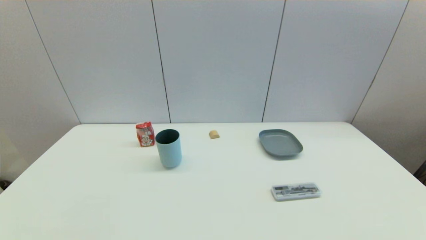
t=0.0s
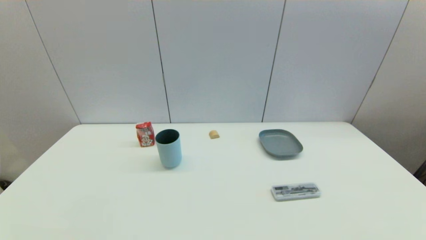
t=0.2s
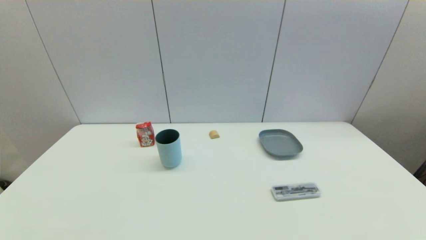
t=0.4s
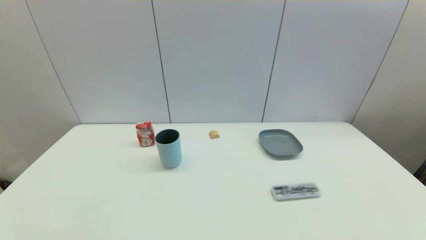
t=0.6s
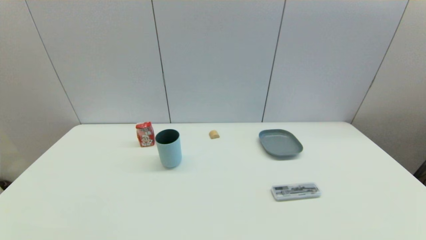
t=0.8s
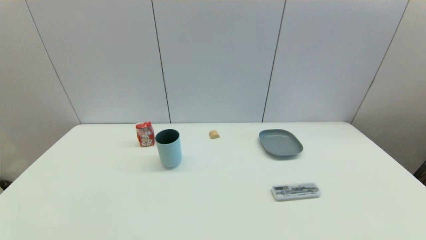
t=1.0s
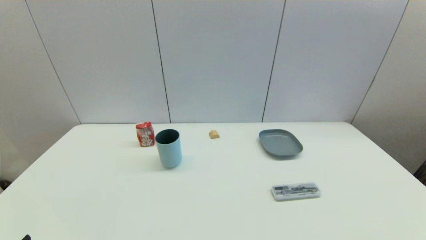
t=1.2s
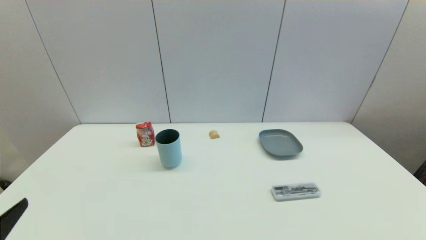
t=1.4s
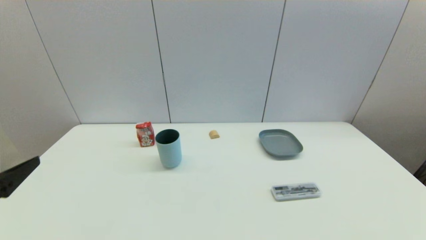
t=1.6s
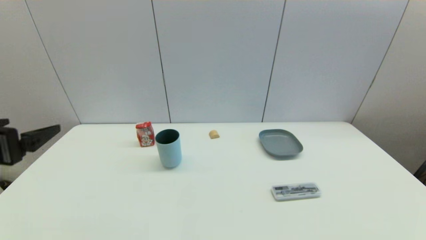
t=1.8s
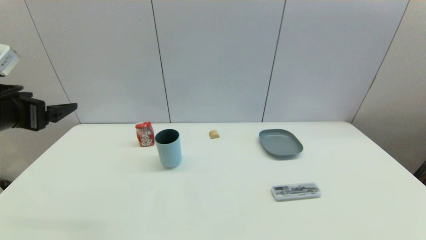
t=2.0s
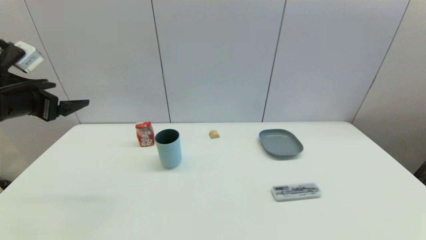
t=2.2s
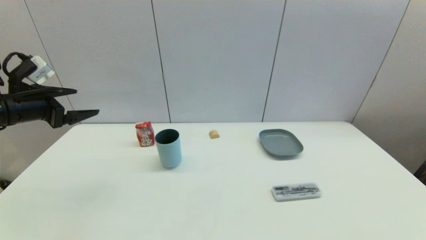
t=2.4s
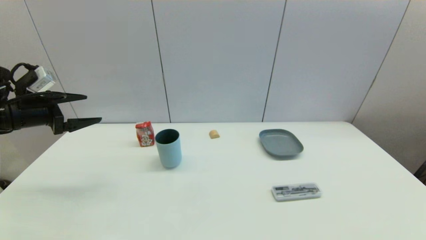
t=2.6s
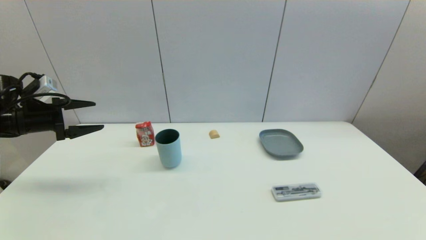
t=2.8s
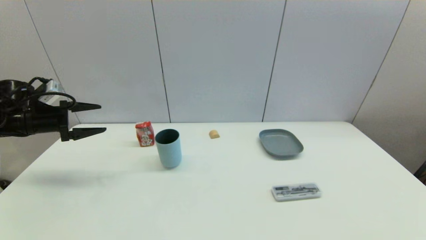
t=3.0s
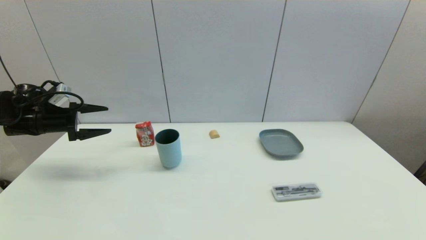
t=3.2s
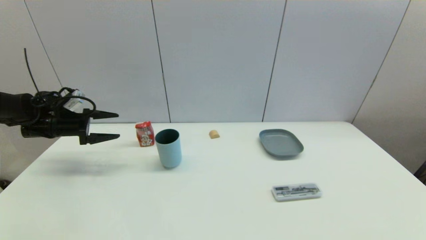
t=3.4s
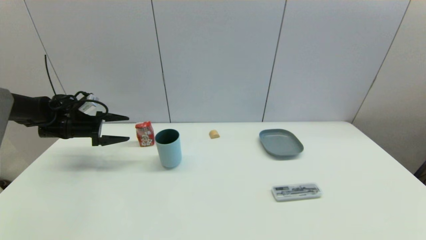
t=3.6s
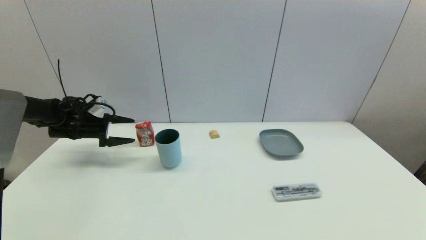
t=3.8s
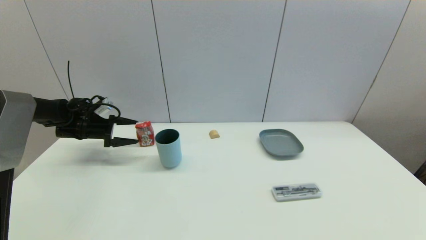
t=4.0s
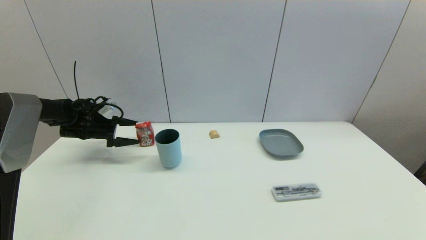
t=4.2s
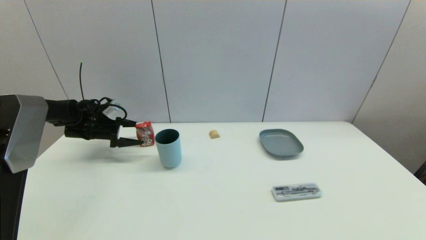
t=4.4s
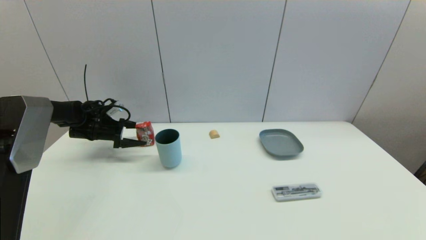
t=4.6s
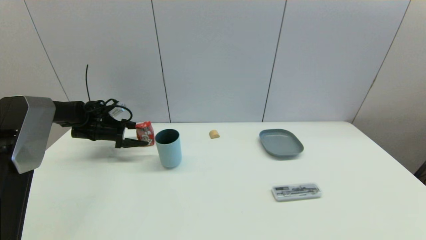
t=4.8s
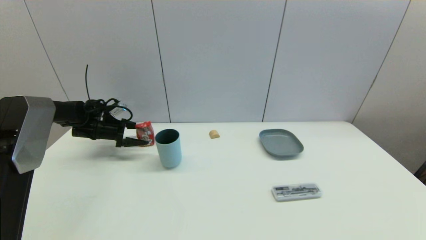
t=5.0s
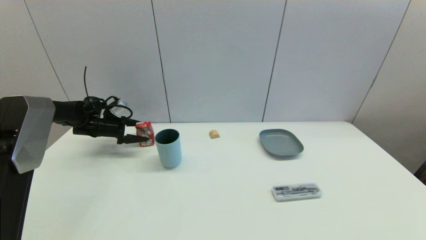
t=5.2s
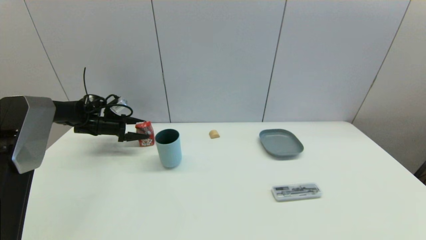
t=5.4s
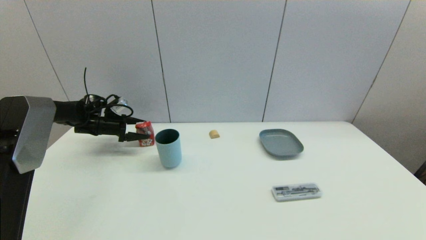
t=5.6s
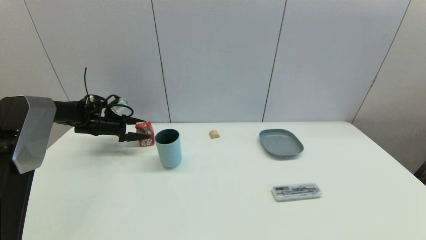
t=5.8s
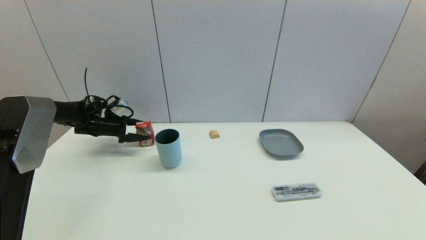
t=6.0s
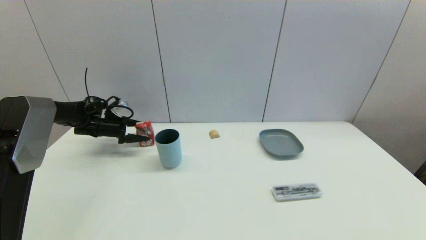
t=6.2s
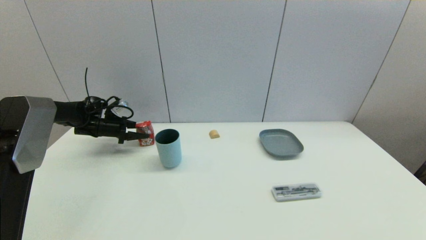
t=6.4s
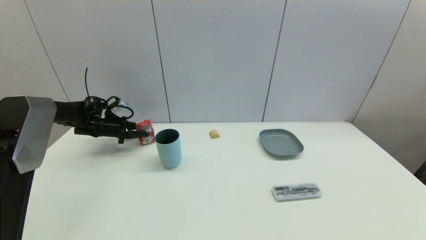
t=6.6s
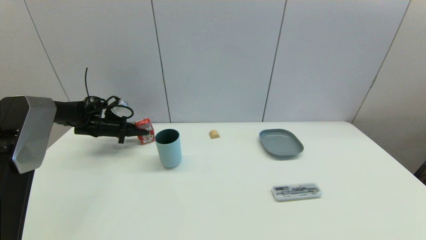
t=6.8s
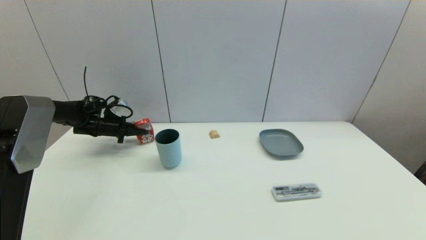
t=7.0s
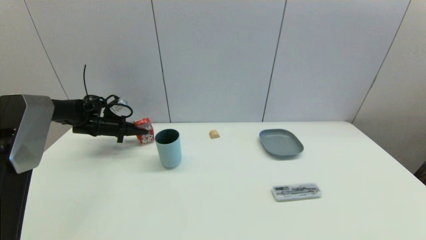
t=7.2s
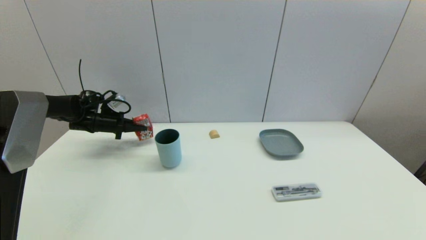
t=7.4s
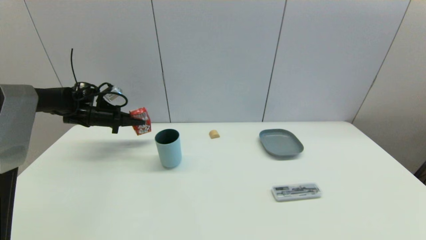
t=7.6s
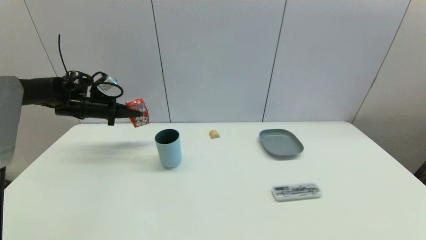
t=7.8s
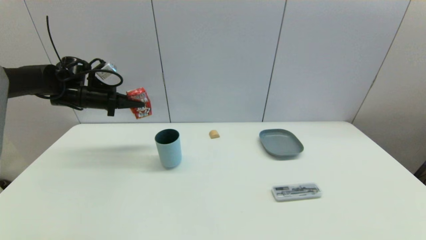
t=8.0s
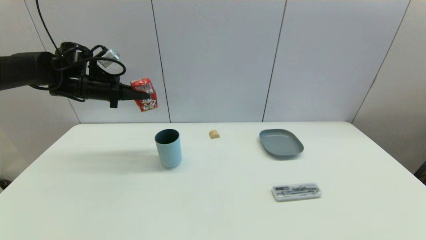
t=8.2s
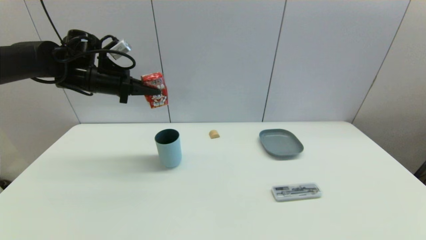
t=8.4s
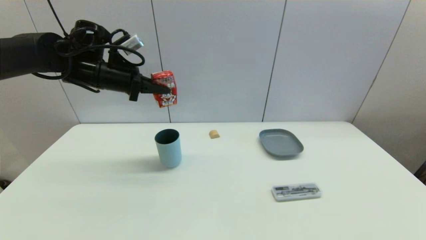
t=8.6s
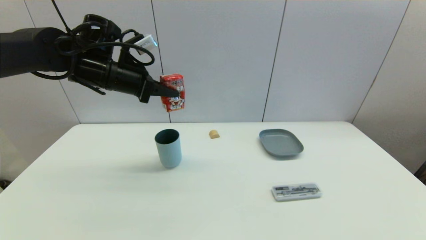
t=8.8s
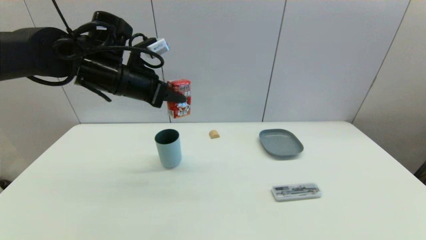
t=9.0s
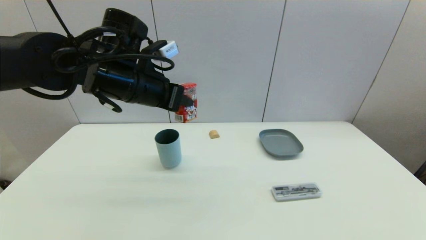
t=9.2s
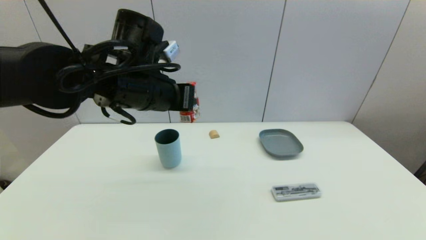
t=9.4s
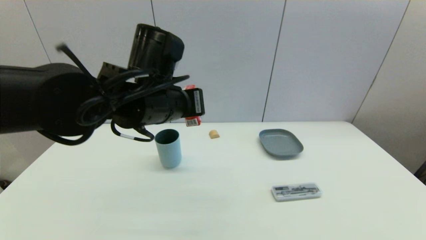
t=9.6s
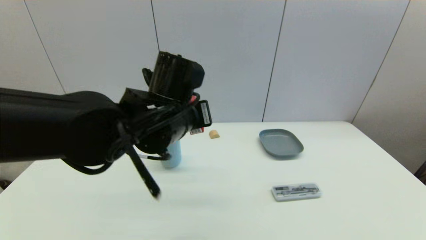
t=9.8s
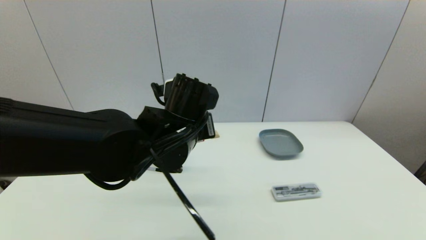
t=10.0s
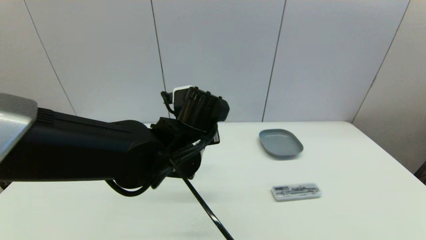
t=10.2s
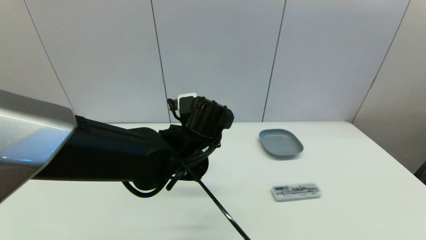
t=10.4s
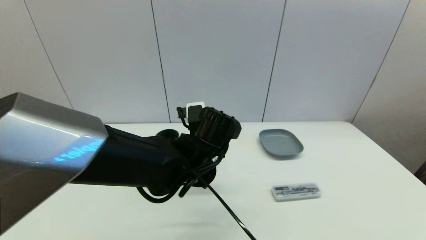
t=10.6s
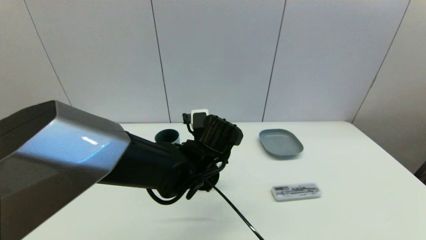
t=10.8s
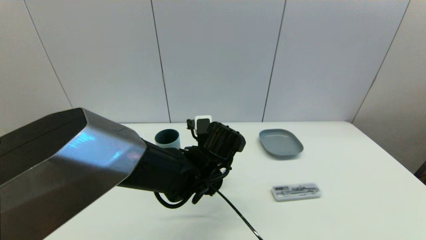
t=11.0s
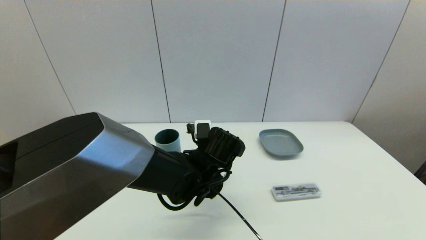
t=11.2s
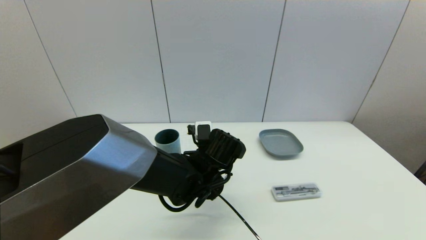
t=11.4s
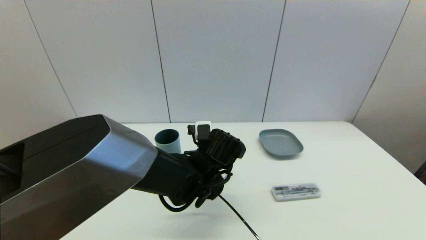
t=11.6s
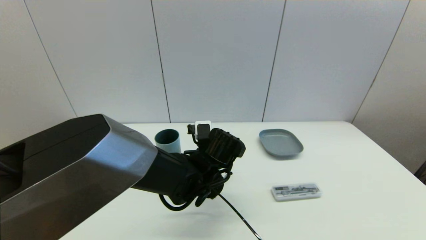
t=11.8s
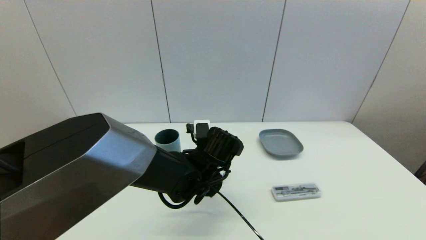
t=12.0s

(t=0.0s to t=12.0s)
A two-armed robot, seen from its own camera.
Step, t=1.4s - t=7.0s: Grasp the wangzai milk with left gripper.
t=0.0s - t=1.6s: The left gripper travels upward and forward by approximately 20 cm.
t=1.6s - t=3.0s: The left gripper moves forward and to the left, roughly 30 cm.
t=3.0s - t=4.4s: The left gripper travels forward, downward and to the right by about 15 cm.
t=4.4s - t=6.0s: There are only small adjustments of the grippers.
t=6.0s - t=7.6s: The left gripper travels upward by approximately 5 cm, and closes its fingers.
t=7.6s - t=9.0s: The left gripper shifts some 25 cm to the right, upward and backward.
t=9.0s - t=10.4s: The left gripper heads to the right, downward and backward, covering roughly 20 cm.
t=10.4s - t=12.0s: The left gripper shifts some 5 cm downward.

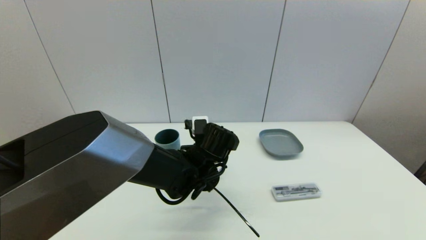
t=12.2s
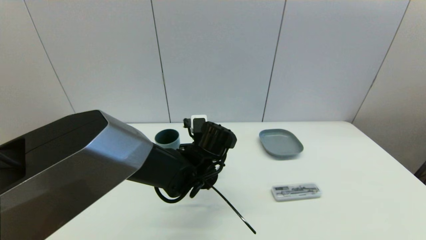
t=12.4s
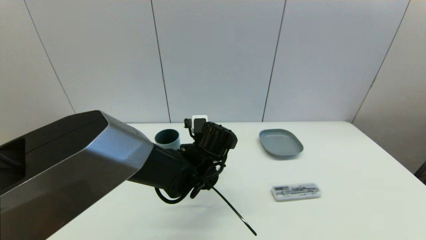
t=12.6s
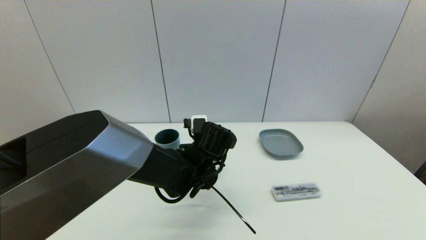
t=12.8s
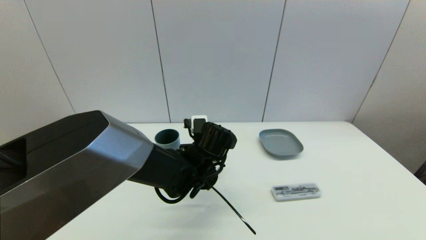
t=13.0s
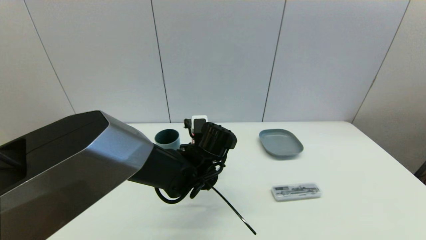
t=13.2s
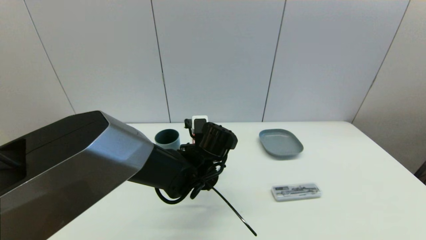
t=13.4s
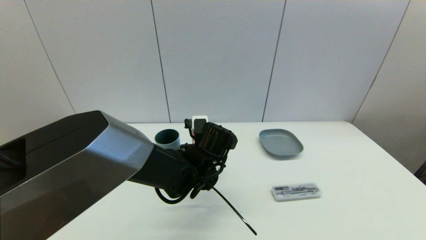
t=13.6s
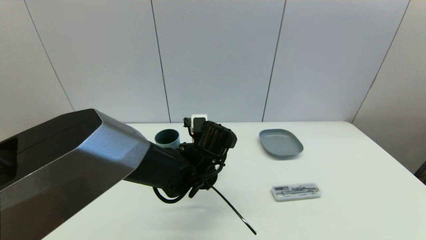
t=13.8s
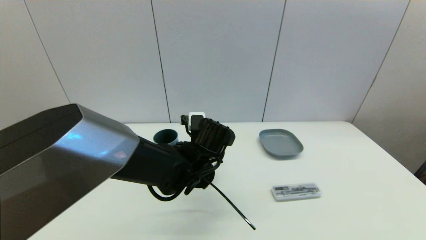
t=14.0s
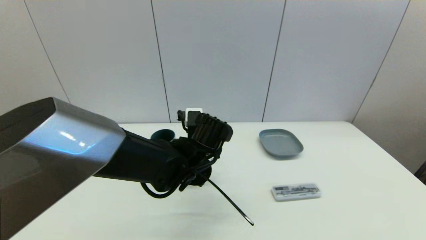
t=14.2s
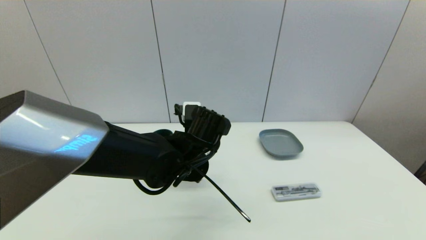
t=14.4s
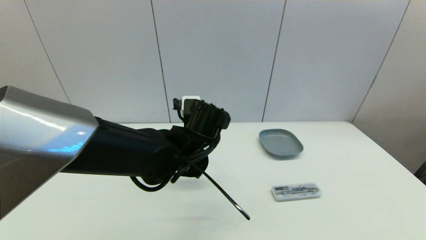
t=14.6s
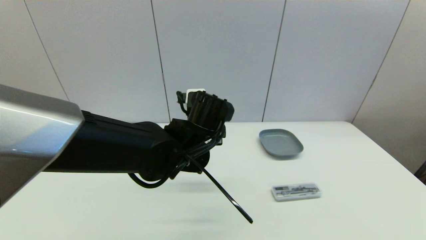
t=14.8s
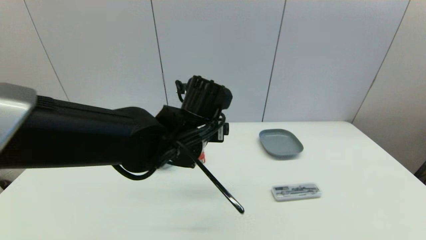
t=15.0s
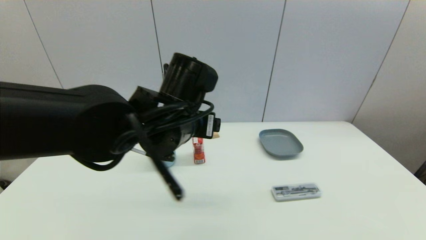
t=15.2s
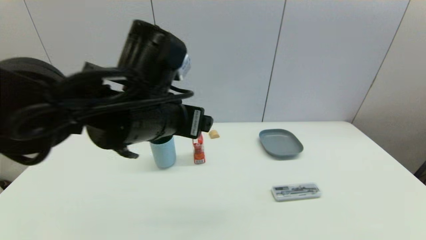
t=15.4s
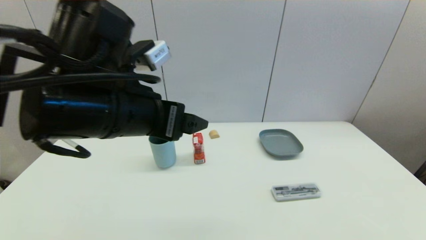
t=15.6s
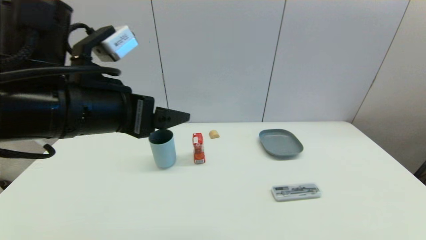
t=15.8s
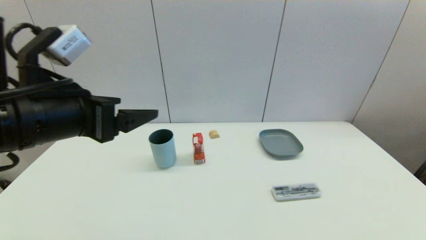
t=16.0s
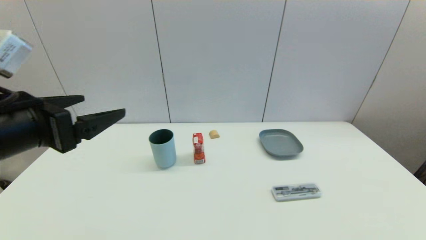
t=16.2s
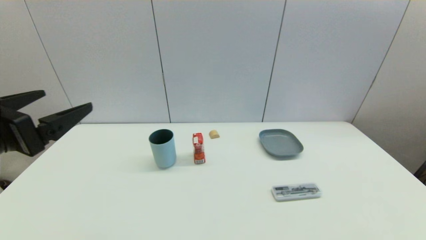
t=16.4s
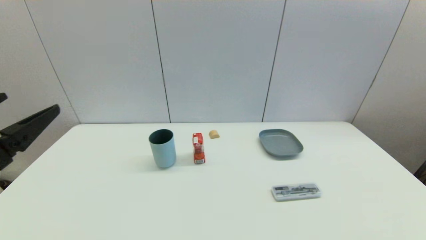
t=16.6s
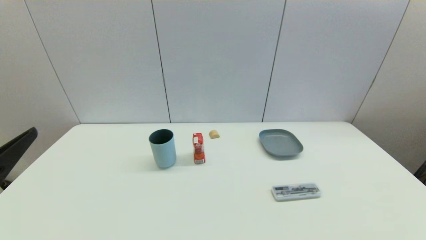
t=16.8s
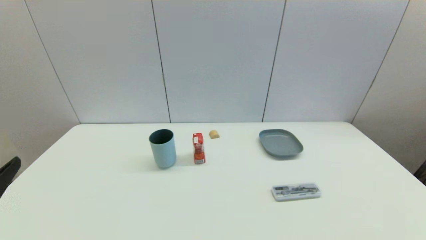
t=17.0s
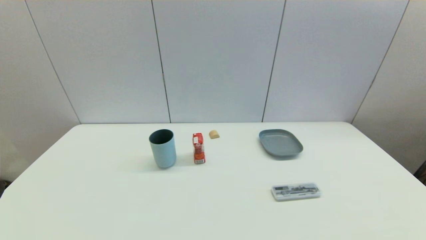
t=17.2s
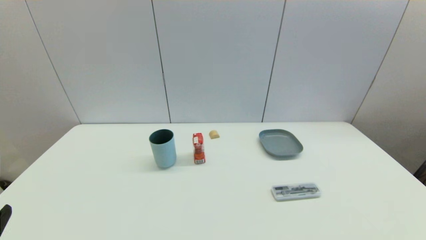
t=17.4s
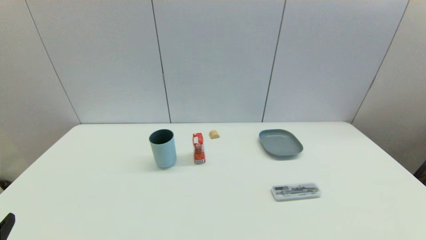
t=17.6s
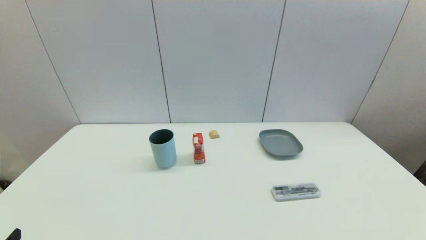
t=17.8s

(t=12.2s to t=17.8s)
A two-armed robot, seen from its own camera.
t=12.2s - t=13.6s: The left gripper opens its fingers.
t=13.6s - t=15.0s: The left gripper shifts some 10 cm upward.
t=15.0s - t=16.4s: The left gripper shifts about 25 cm to the left and backward.
t=16.4s - t=17.8s: The left gripper is displaced backward and downward by about 20 cm.
